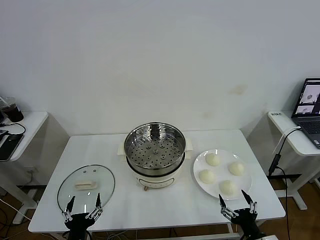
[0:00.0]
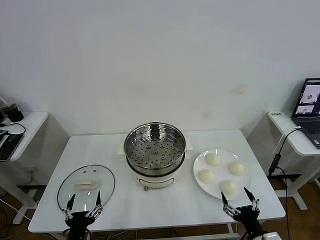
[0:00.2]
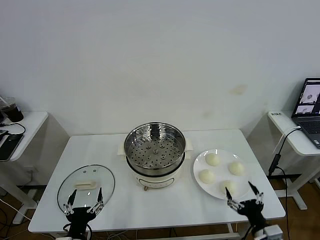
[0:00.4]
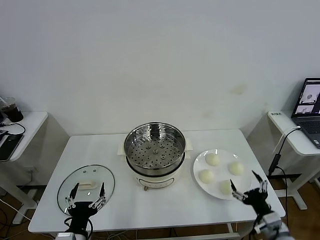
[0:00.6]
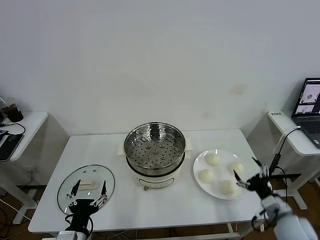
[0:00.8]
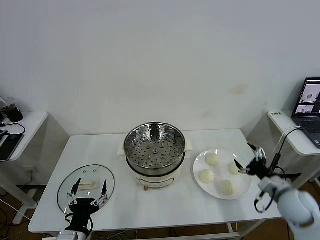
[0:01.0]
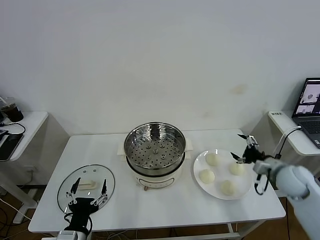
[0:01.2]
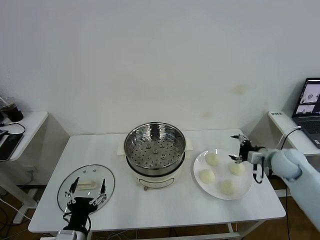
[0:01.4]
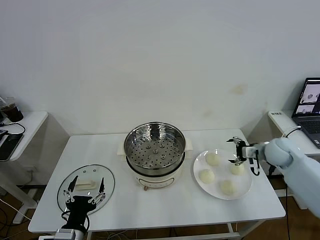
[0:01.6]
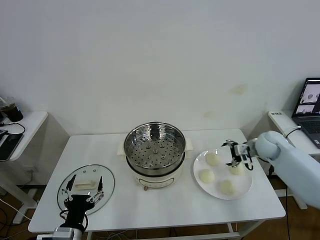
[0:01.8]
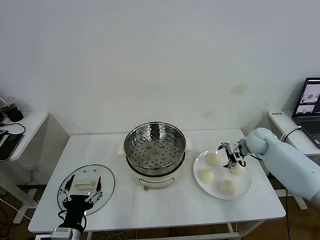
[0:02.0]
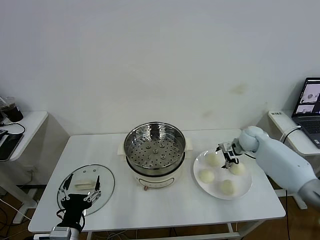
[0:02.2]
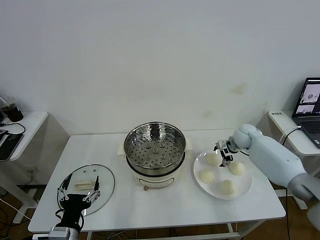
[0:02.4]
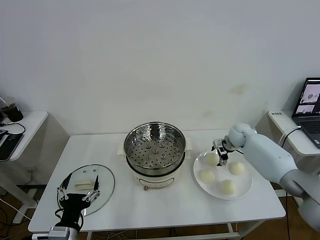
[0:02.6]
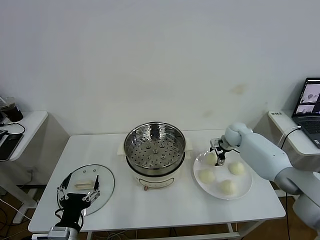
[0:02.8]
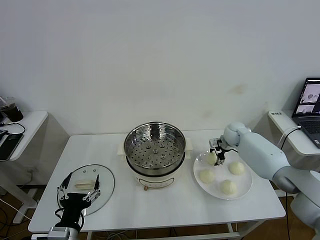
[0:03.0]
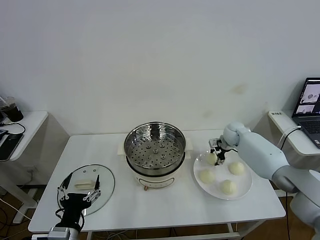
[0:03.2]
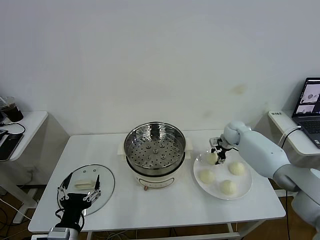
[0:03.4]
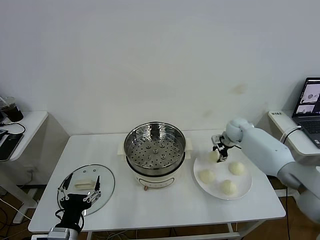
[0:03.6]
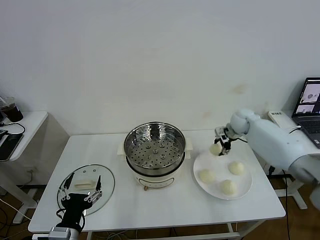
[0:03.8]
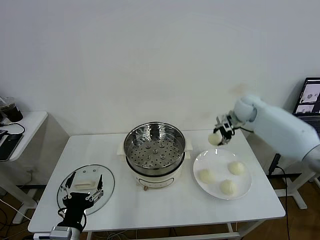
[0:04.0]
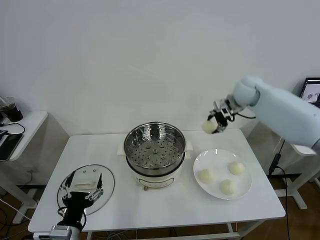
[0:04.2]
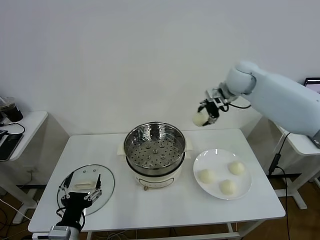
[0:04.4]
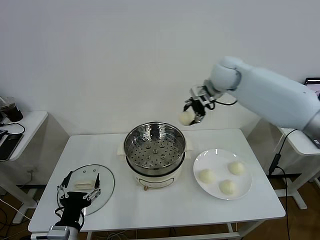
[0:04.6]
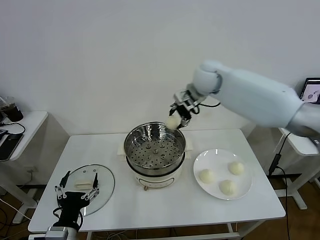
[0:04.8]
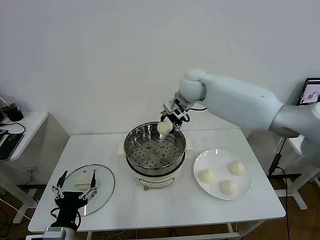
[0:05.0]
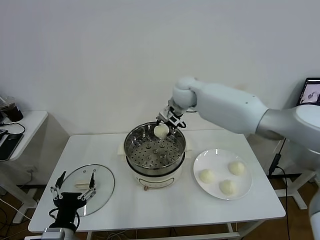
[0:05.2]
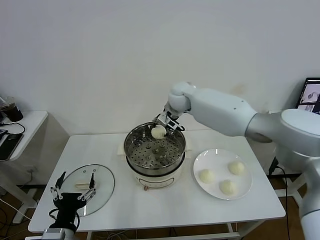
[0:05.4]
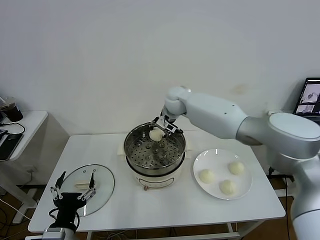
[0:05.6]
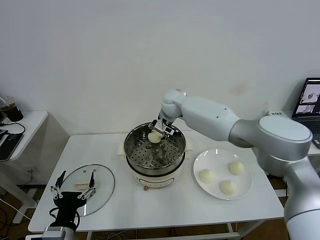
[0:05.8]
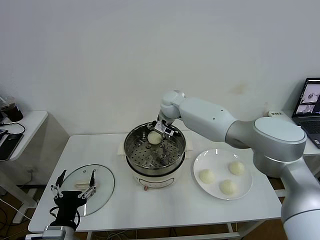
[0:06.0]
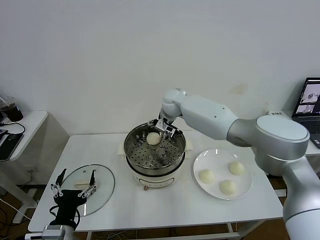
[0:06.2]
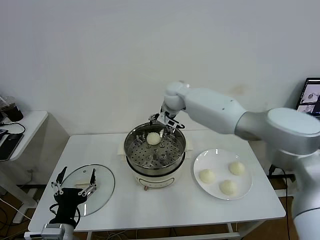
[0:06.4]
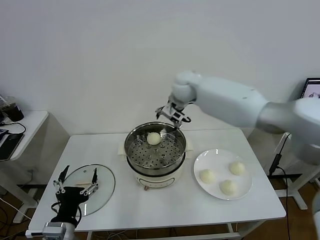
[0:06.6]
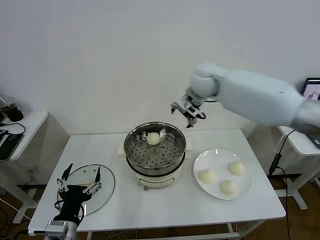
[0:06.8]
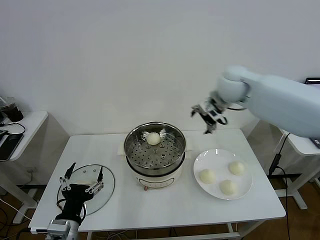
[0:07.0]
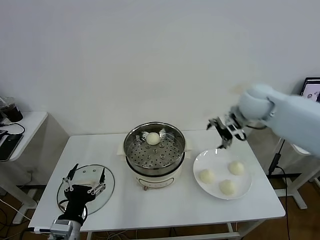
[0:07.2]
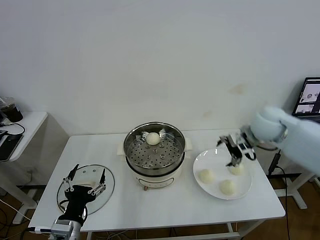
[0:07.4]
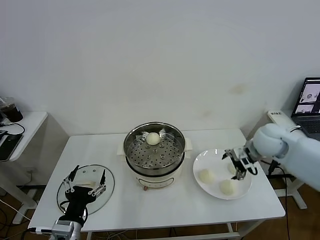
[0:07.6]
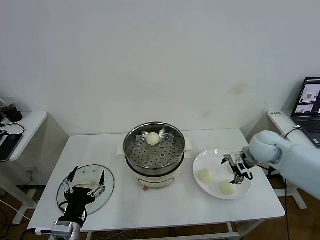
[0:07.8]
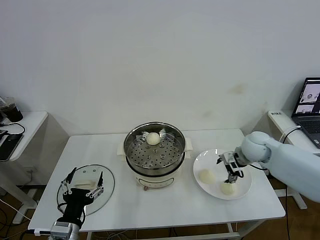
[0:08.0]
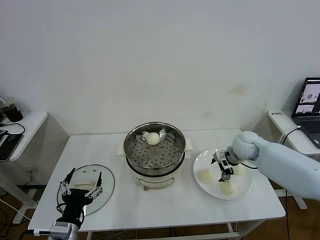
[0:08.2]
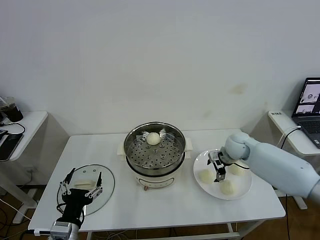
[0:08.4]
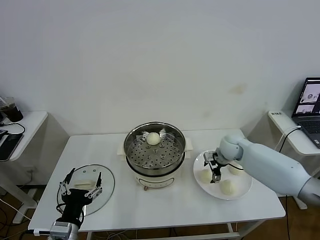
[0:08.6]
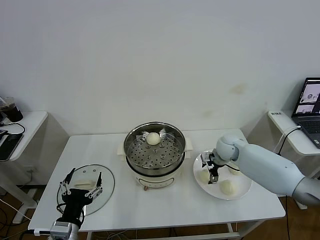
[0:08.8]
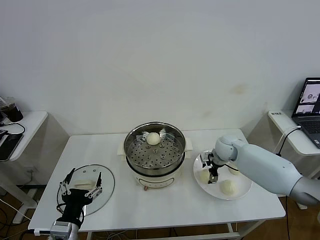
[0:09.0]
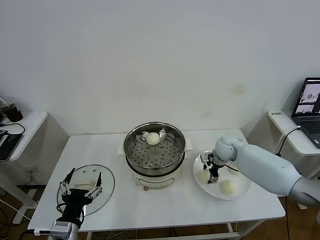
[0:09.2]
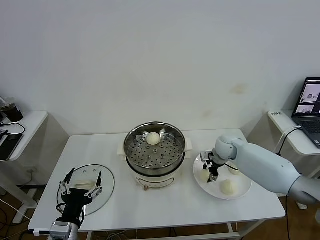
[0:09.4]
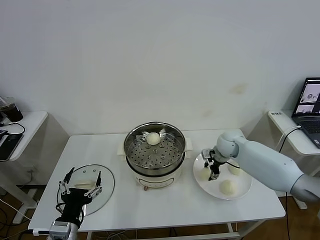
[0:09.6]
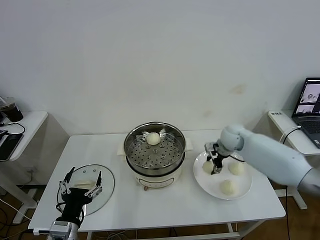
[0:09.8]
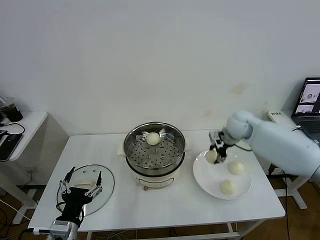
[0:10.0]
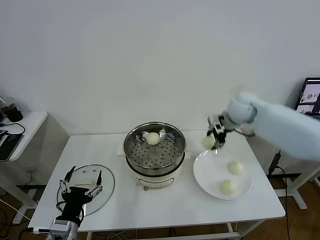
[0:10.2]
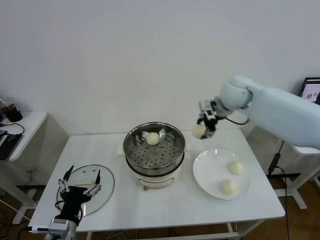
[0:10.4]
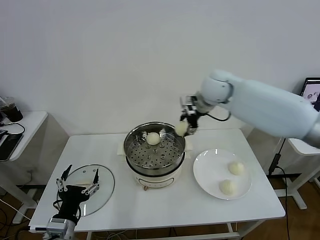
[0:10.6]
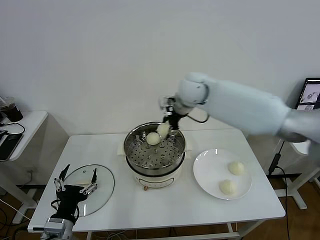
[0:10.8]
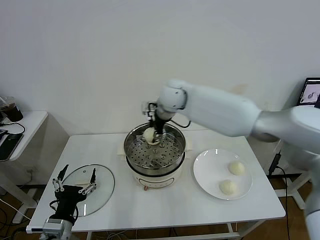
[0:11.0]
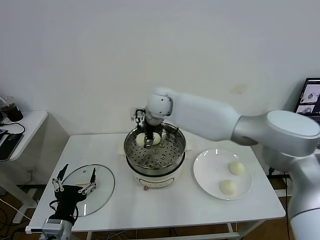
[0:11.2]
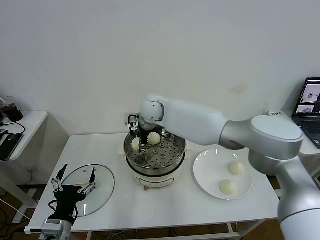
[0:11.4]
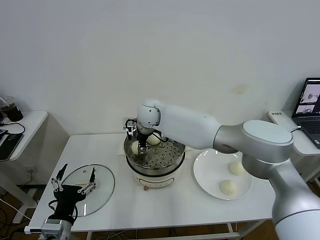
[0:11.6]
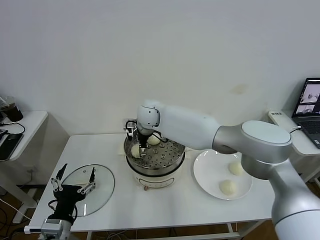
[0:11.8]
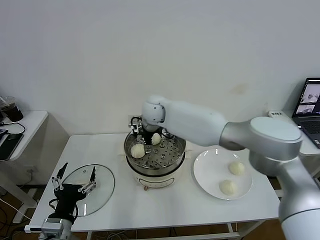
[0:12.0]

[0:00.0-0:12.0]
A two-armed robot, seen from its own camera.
Task of the whole recording: take steamed baozi put them in steamer then cover it.
Step, 0.0 to 3.0 s: Grasp the baozi in the plate with right gripper.
Step, 3.2 to 6.0 s: Place the baozi on the steamer with right gripper.
Step, 6.2 to 9.2 s: Grasp the baozi in the plate with right gripper.
Step, 9.4 to 11.8 s: Place the baozi on the steamer with right gripper.
1.6 to 3.0 s: The right gripper heads forward, to the left and downward, covering roughly 15 cm, and closes.
3.0 to 4.4 s: The right gripper travels upward by about 25 cm.
4.4 to 6.0 s: The right gripper travels to the left and downward by approximately 20 cm, and opens.
6.0 to 7.6 s: The right gripper moves to the right and backward, about 35 cm.
7.6 to 9.0 s: The right gripper goes about 15 cm downward, to the left and forward.
9.0 to 10.4 s: The right gripper travels upward by some 25 cm, and closes up.
10.4 to 12.0 s: The right gripper shifts about 20 cm to the left, and opens its fingers.

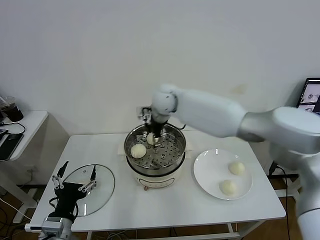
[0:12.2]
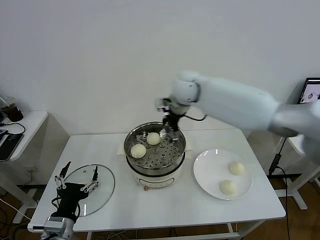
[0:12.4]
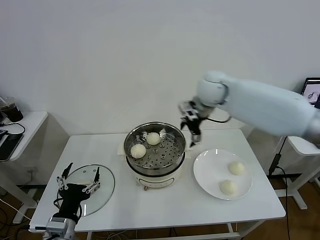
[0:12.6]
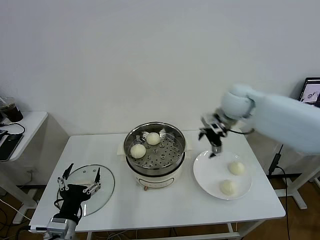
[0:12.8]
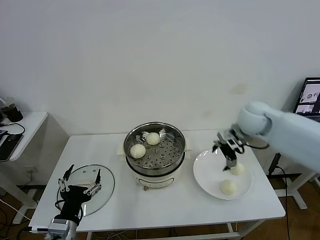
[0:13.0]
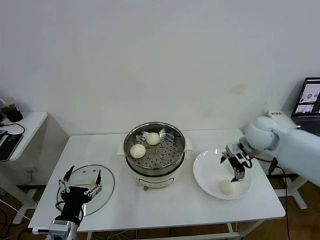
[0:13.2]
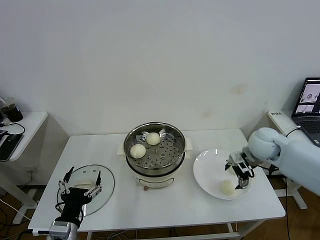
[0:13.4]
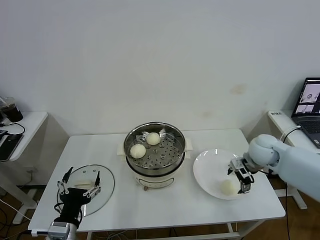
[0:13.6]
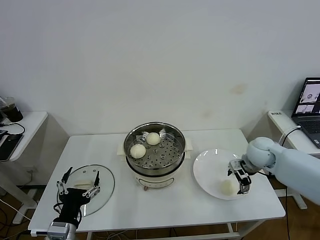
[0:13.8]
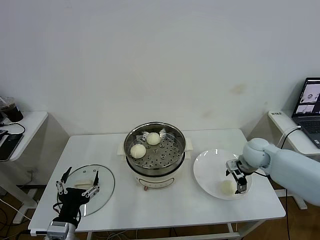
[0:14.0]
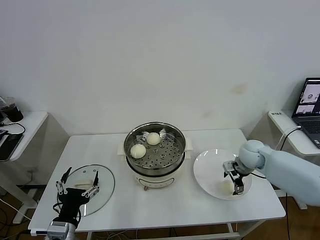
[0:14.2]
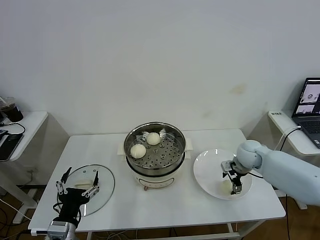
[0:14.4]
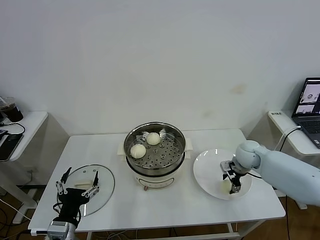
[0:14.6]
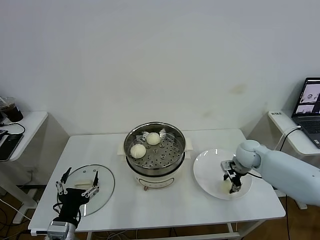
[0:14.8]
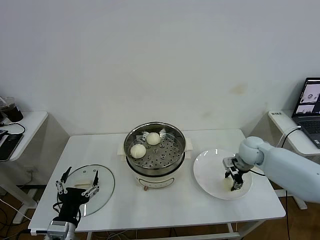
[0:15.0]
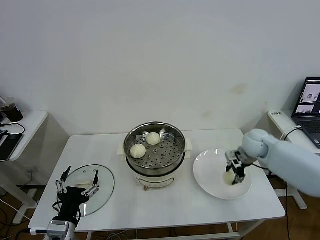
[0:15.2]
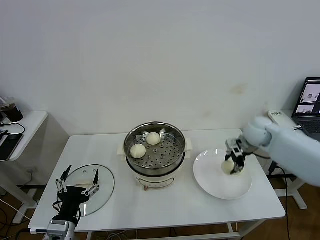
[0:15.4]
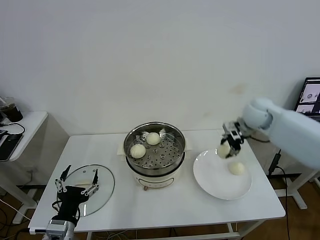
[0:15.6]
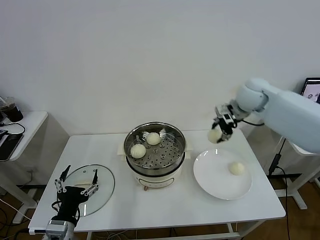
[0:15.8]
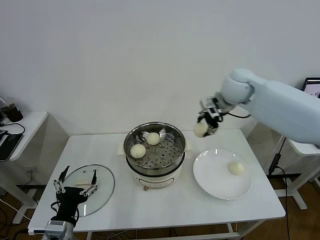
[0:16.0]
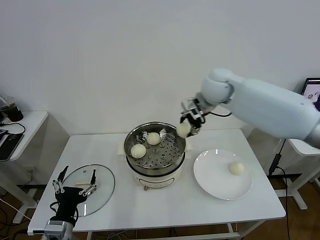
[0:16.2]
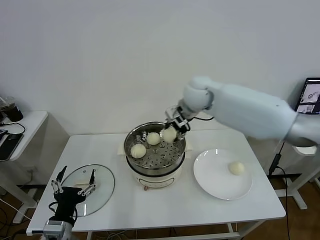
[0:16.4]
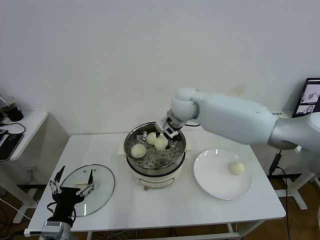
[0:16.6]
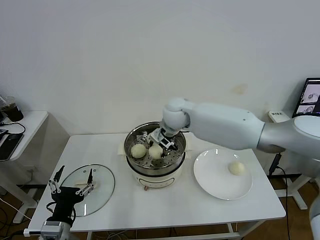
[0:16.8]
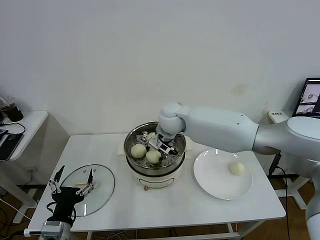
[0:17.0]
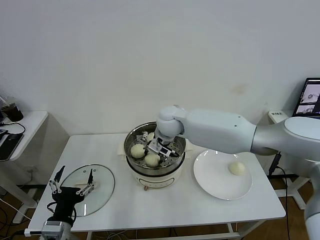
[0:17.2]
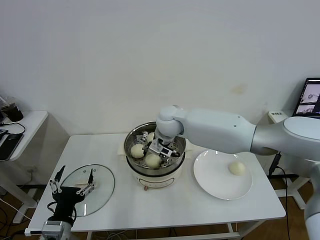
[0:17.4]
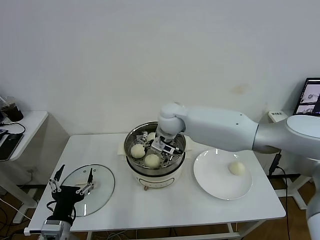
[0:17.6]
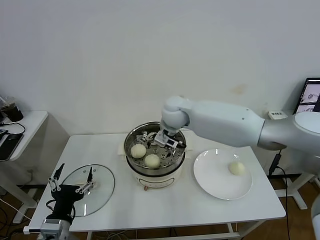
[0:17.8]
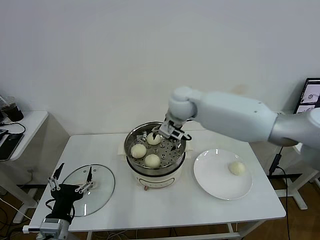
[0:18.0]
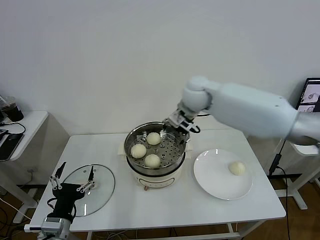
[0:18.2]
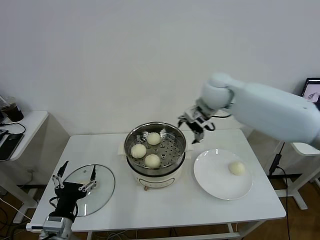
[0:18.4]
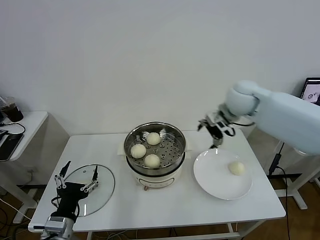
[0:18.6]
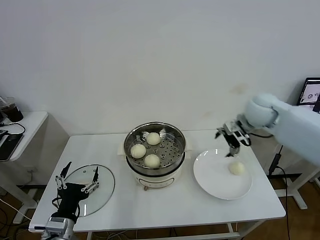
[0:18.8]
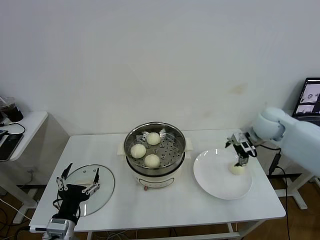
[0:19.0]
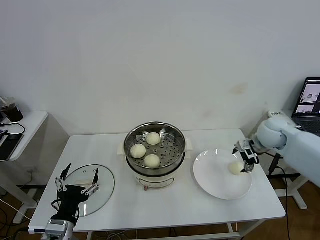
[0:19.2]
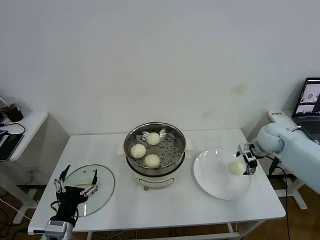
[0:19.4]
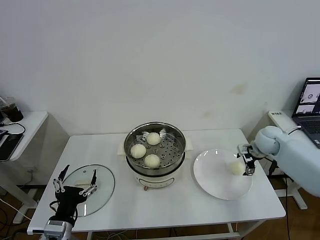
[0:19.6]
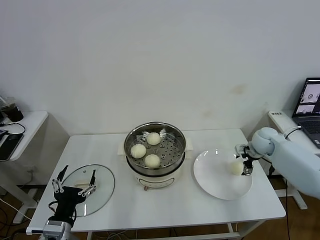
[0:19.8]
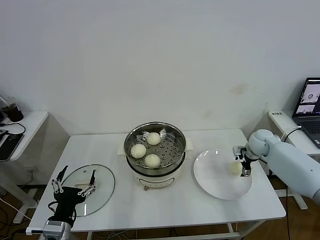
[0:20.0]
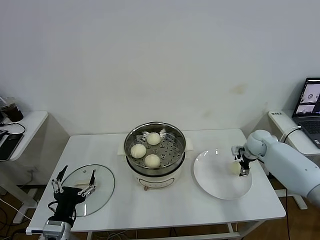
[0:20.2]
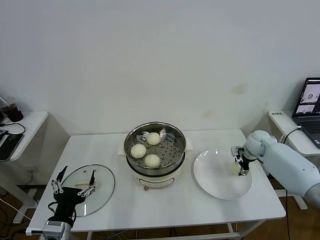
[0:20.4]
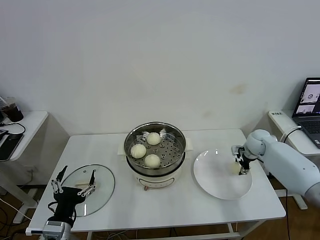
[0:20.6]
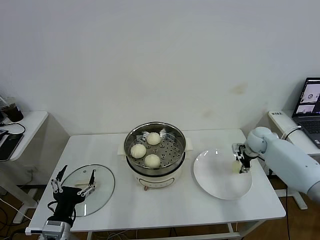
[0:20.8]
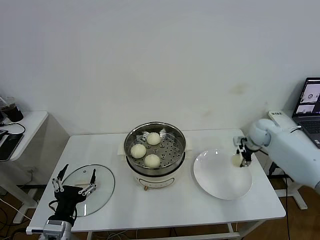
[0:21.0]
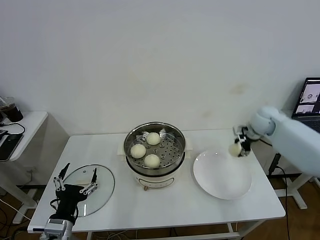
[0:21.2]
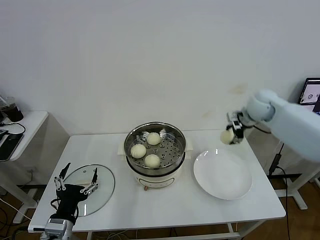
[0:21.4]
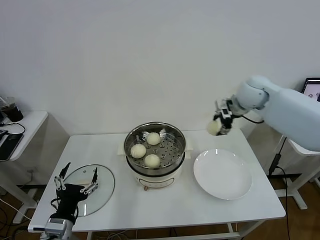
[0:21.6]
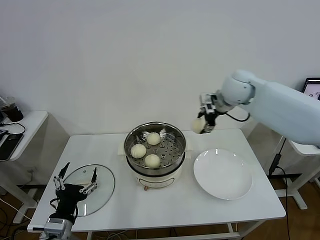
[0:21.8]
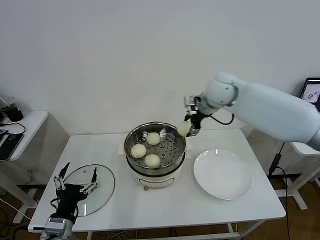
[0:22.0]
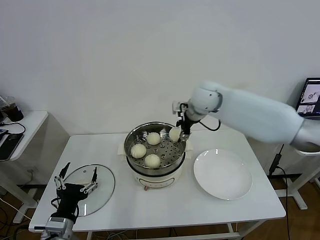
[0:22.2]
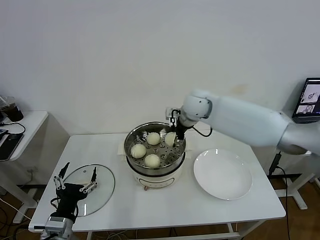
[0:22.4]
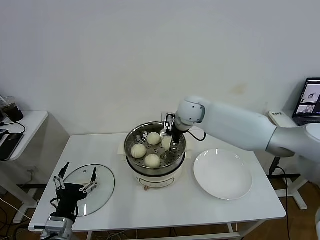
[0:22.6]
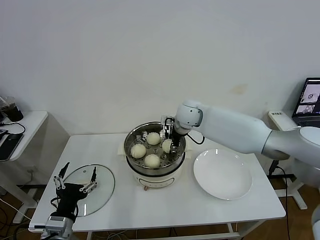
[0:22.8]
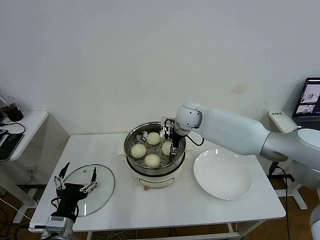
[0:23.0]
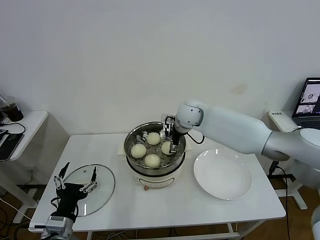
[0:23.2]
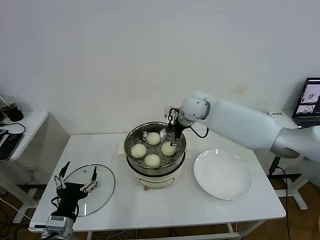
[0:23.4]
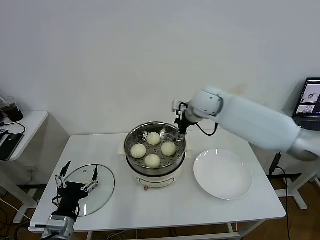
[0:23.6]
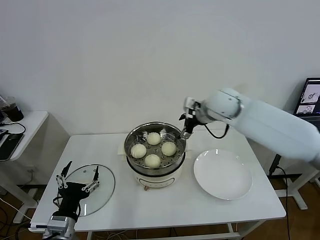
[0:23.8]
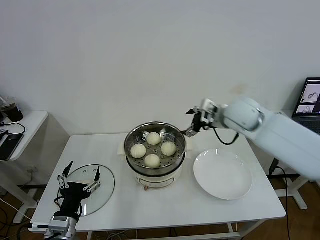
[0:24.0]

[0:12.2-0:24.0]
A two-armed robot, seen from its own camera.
Task of the whole recording: take steamed baozi put them in steamer then cover it.
Step, 12.2 to 14.6 s: Grasp the baozi in the plate with right gripper.
Step, 15.0 to 17.4 s: Place the baozi on the steamer with right gripper.
Step, 17.6 to 20.6 s: Grasp the baozi in the plate with right gripper.
Step, 20.8 to 23.0 s: Place the baozi on the steamer with right gripper.
12.2 to 13.6 s: The right gripper moves to the right and downward, some 35 cm.
13.6 to 15.2 s: The right gripper closes.
15.2 to 16.6 s: The right gripper is displaced to the left and upward by roughly 30 cm.
16.6 to 18.2 s: The right gripper is displaced to the right and upward by roughly 10 cm, and opens up.
18.2 to 19.6 s: The right gripper shifts about 35 cm to the right and downward.
19.6 to 21.0 s: The right gripper closes.
21.0 to 22.6 s: The right gripper heads to the left, covering roughly 30 cm.
22.6 to 24.0 s: The right gripper is displaced to the right and backward by about 15 cm, and opens up.
